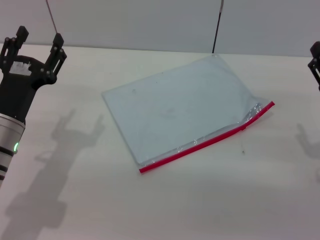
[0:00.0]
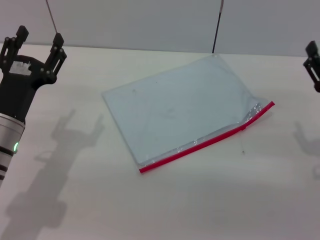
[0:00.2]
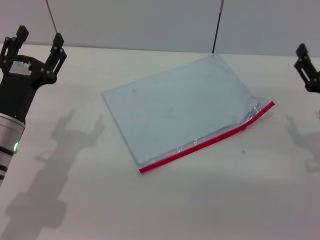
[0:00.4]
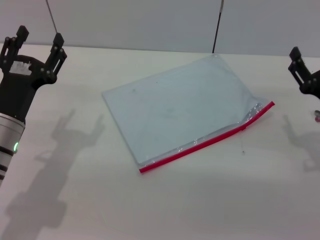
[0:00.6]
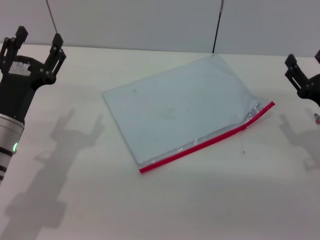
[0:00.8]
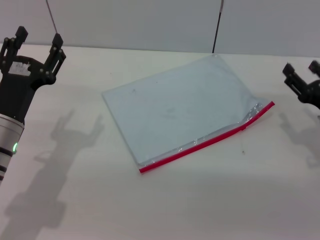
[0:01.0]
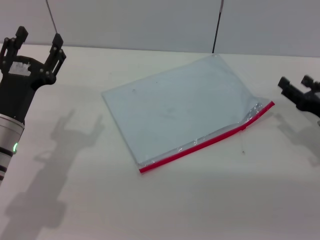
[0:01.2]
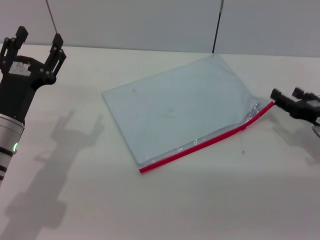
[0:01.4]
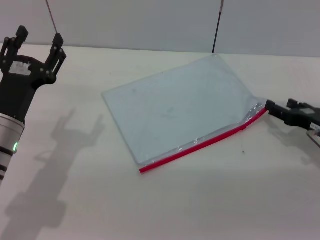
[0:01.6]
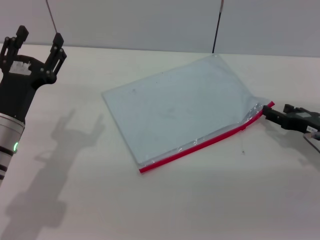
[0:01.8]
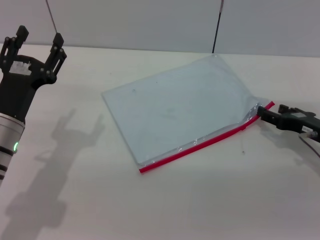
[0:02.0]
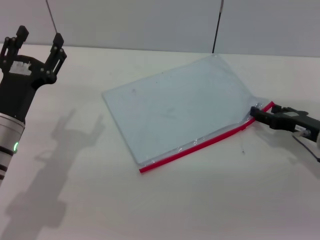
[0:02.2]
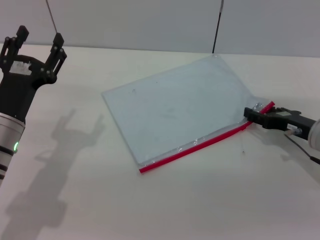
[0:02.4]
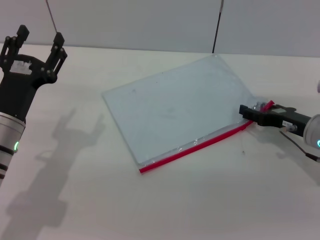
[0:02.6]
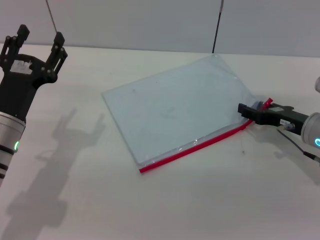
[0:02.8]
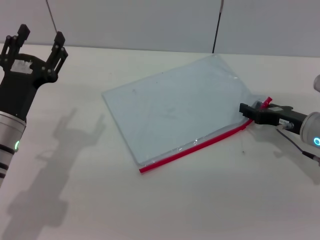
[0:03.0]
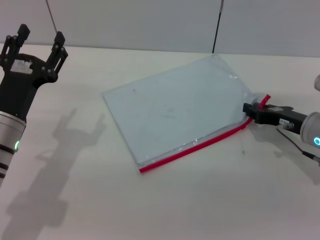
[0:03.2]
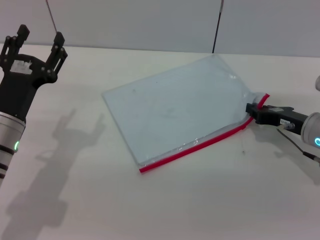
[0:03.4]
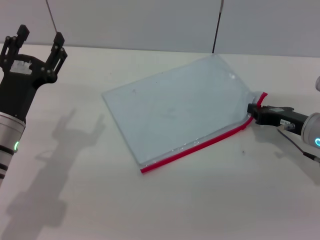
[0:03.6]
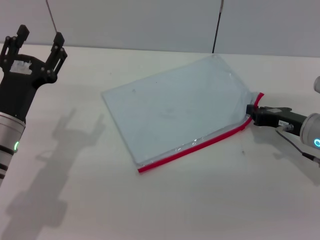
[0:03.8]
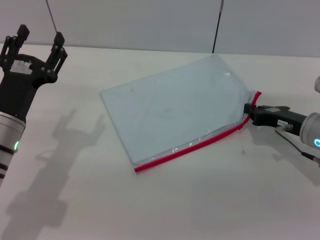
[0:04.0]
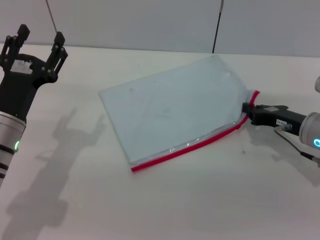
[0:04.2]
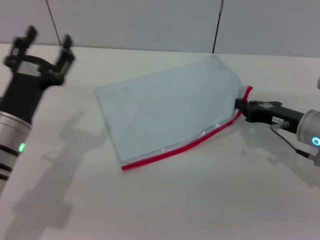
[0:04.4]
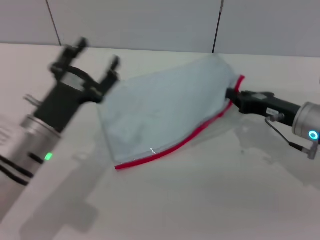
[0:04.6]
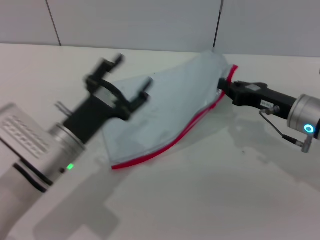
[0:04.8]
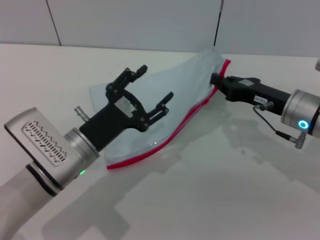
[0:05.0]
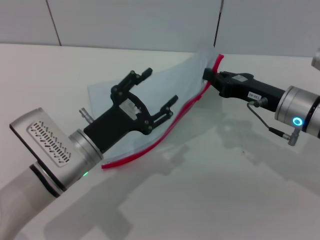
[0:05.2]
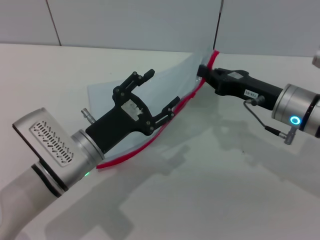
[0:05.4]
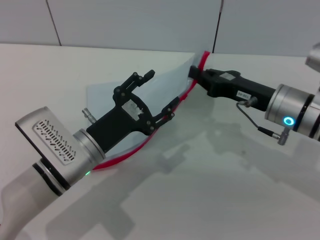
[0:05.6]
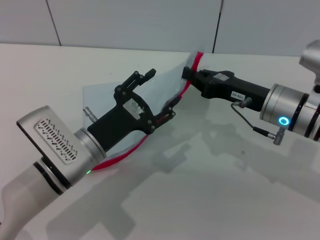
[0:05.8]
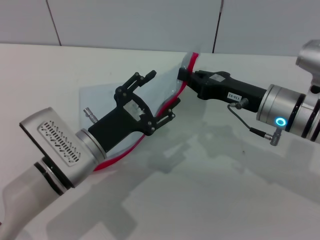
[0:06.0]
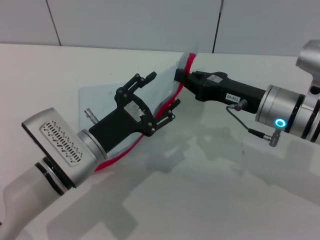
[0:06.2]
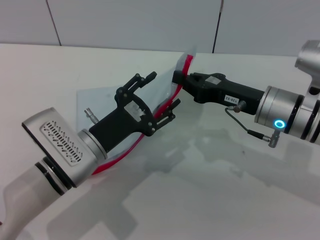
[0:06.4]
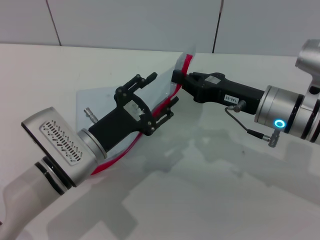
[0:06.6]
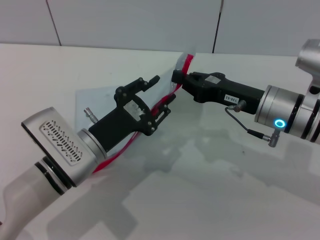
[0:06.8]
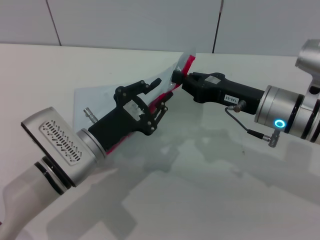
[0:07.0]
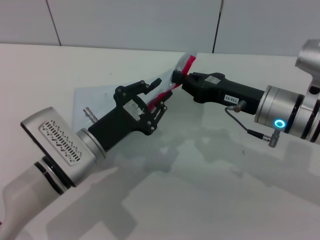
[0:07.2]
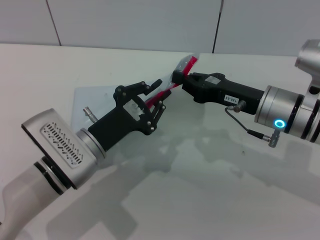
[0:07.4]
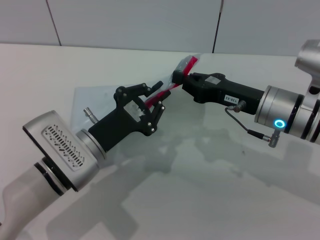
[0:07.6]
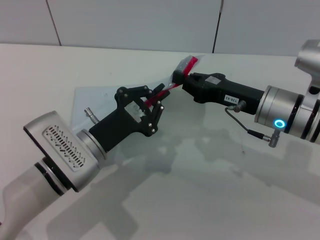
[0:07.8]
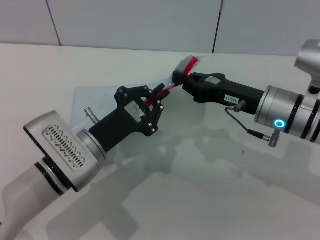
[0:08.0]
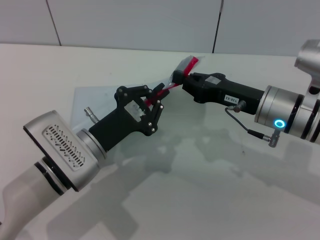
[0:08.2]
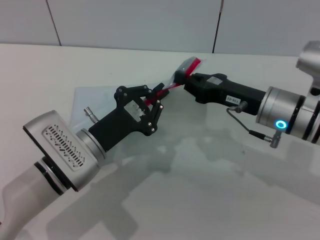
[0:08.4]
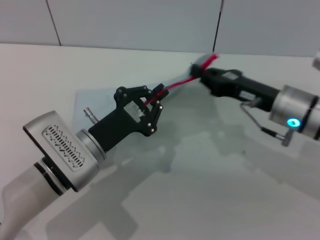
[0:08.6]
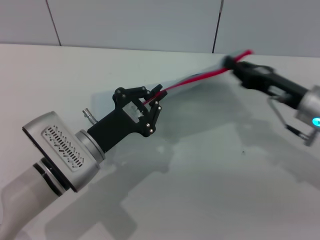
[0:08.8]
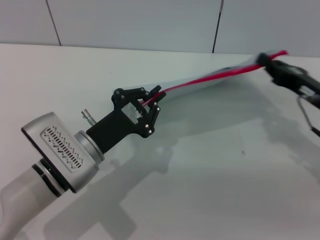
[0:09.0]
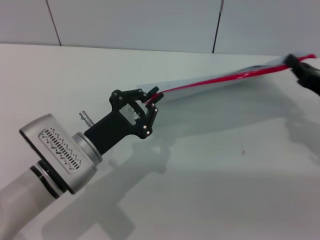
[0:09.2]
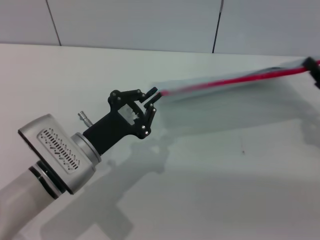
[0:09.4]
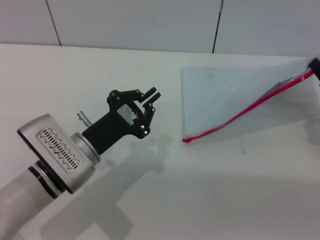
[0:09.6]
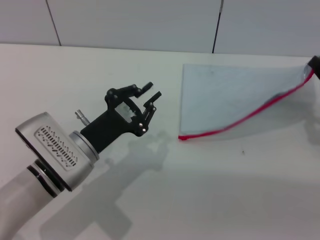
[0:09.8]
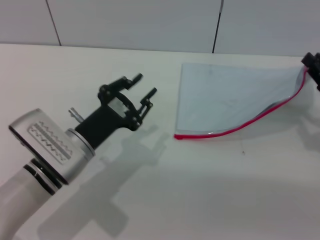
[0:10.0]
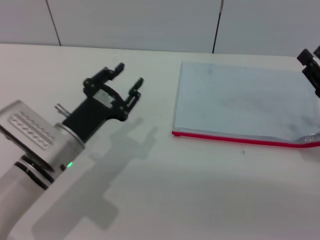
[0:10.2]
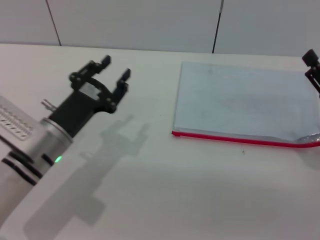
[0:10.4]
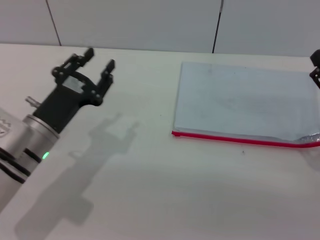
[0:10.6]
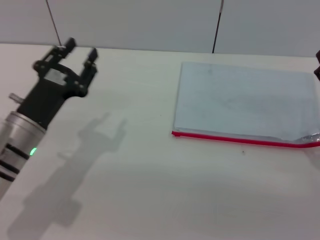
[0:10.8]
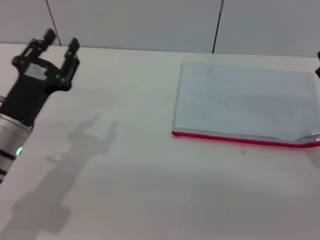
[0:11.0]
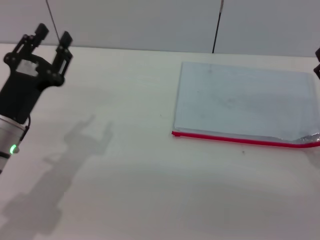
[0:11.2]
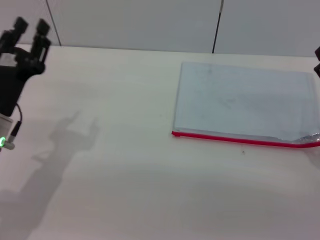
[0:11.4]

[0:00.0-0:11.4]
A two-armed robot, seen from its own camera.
Step, 0:00.0 to 0:04.8: Pick up the transparent plastic bag with the right gripper.
Step, 0:09.8 to 0:10.6: Place the transparent plastic bag.
0:00.0 to 0:01.4: The right gripper heads forward, covering roughly 5 cm.
0:01.4 to 0:02.8: The right gripper shifts by some 5 cm.
0:02.8 to 0:04.2: The right gripper closes up.
0:04.2 to 0:05.6: The right gripper travels to the left by roughly 5 cm; the left gripper travels to the right by some 10 cm.
0:05.6 to 0:07.2: The left gripper closes.
0:07.2 to 0:08.6: The grippers move only a little.
0:08.6 to 0:10.0: The right gripper travels to the right by approximately 10 cm.
0:10.0 to 0:11.4: The left gripper travels to the left by roughly 10 cm, and opens. Meanwhile the right gripper changes place by approximately 5 cm, and opens up.

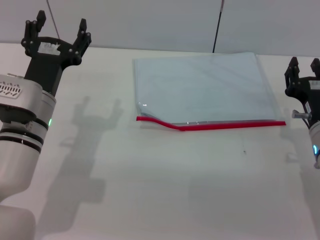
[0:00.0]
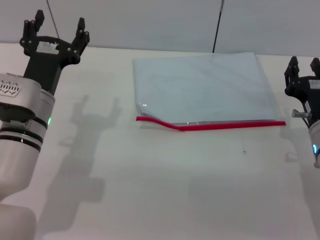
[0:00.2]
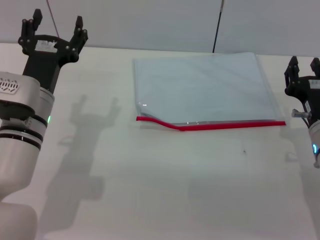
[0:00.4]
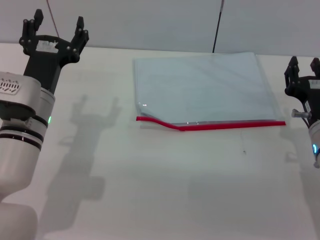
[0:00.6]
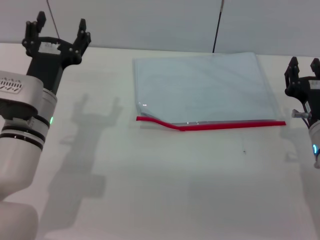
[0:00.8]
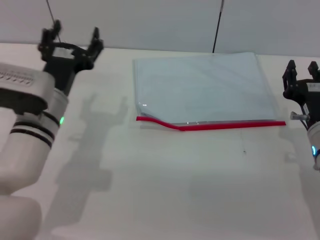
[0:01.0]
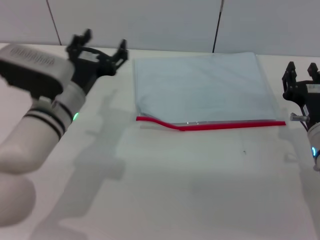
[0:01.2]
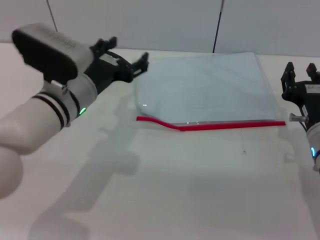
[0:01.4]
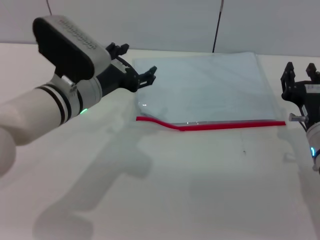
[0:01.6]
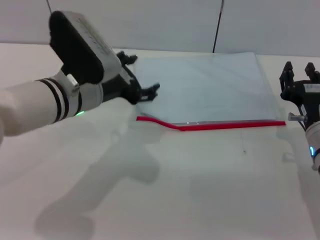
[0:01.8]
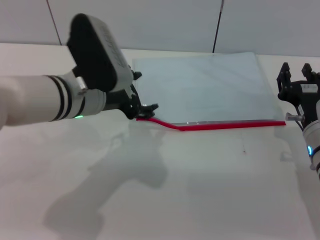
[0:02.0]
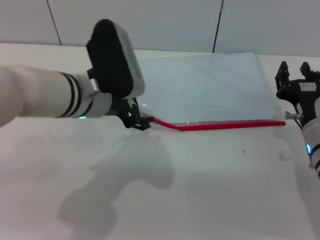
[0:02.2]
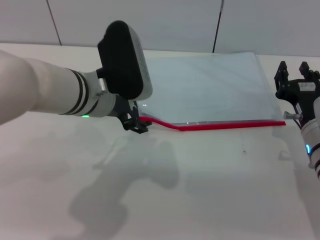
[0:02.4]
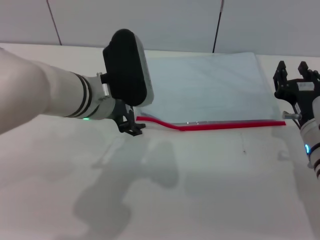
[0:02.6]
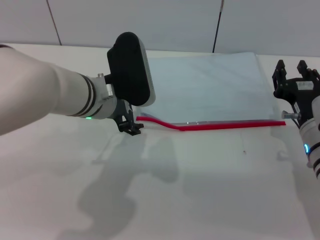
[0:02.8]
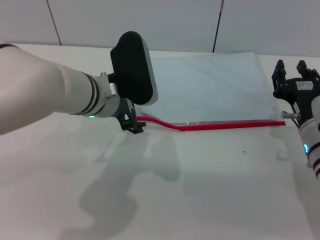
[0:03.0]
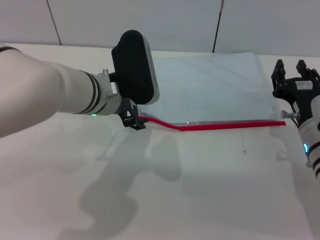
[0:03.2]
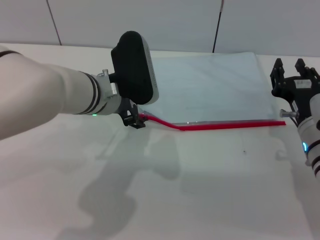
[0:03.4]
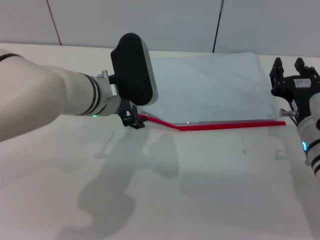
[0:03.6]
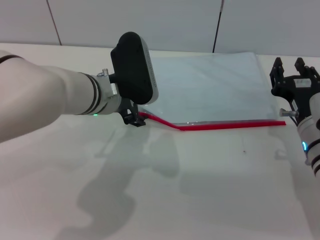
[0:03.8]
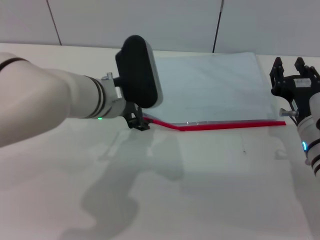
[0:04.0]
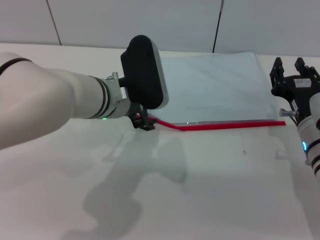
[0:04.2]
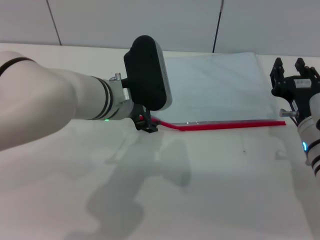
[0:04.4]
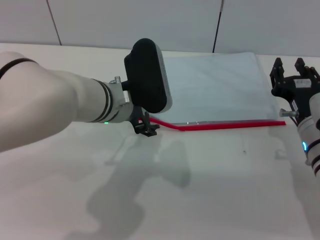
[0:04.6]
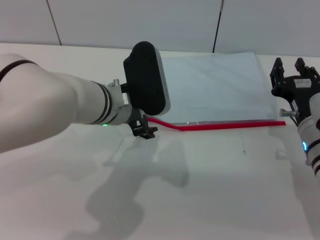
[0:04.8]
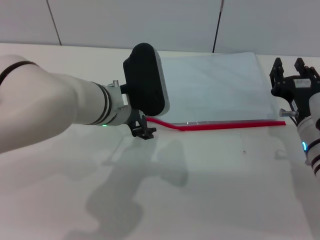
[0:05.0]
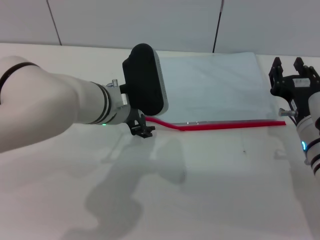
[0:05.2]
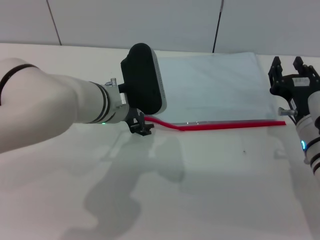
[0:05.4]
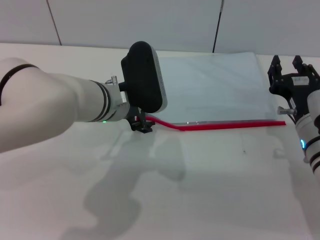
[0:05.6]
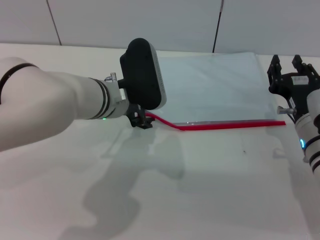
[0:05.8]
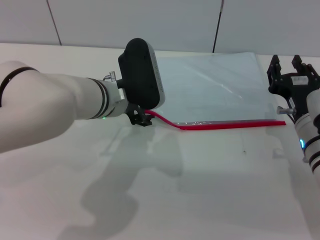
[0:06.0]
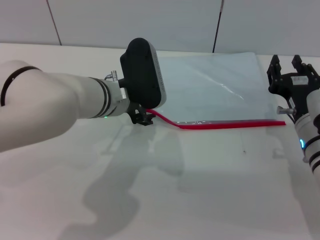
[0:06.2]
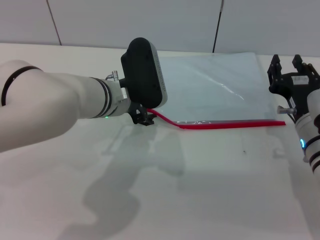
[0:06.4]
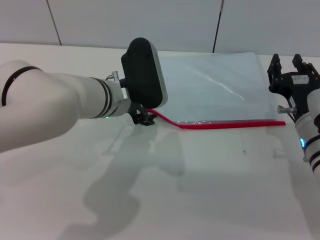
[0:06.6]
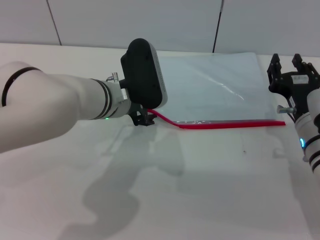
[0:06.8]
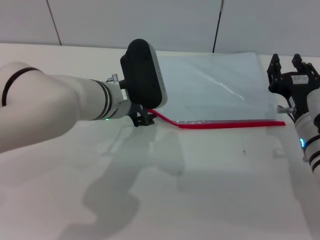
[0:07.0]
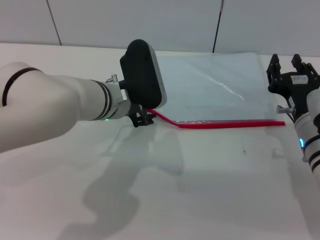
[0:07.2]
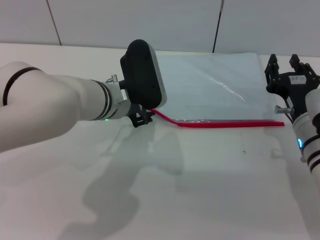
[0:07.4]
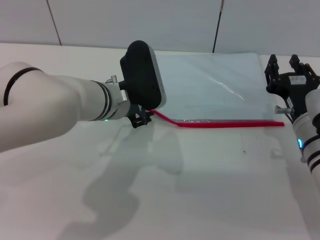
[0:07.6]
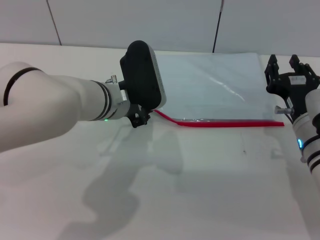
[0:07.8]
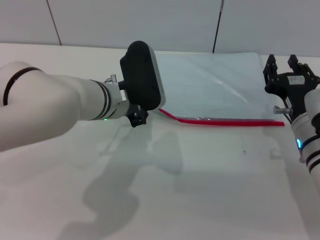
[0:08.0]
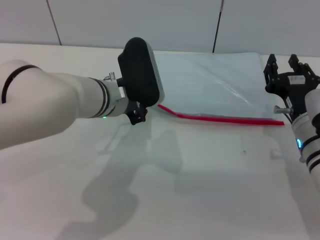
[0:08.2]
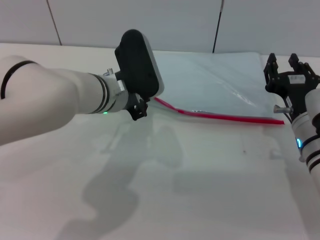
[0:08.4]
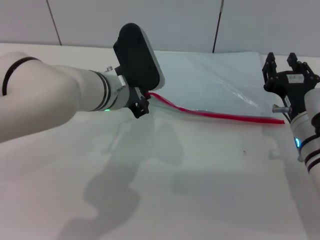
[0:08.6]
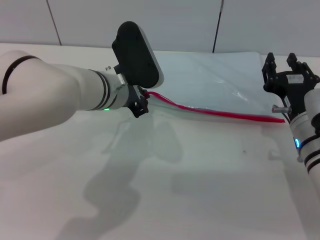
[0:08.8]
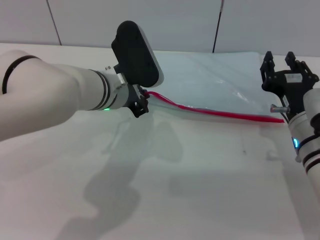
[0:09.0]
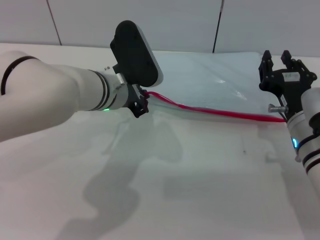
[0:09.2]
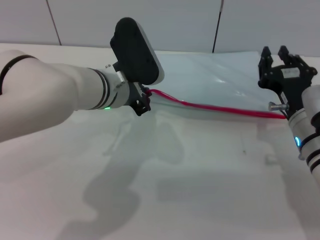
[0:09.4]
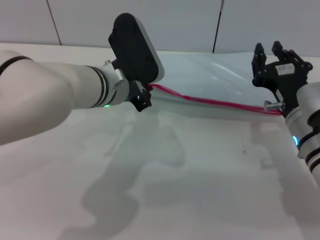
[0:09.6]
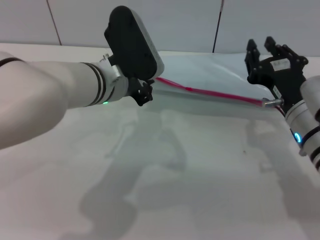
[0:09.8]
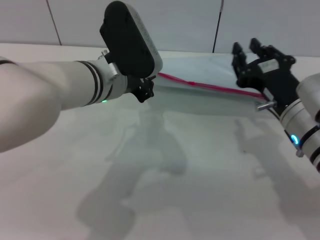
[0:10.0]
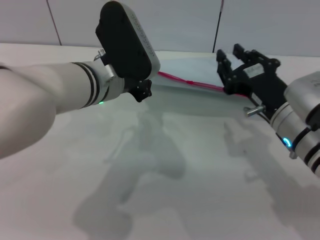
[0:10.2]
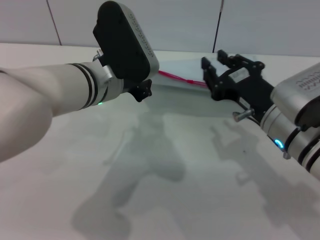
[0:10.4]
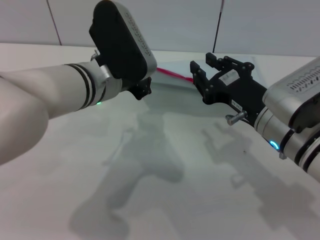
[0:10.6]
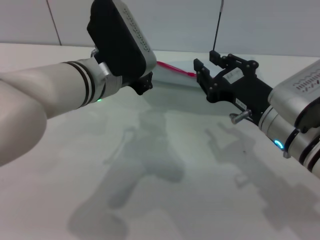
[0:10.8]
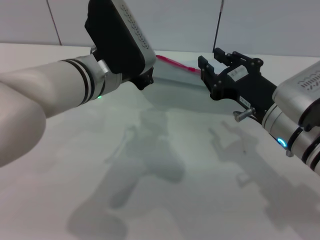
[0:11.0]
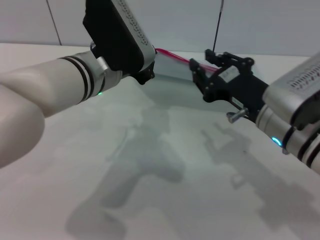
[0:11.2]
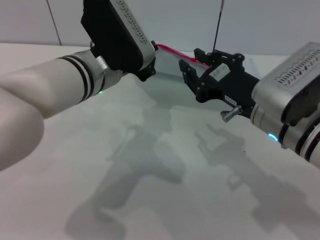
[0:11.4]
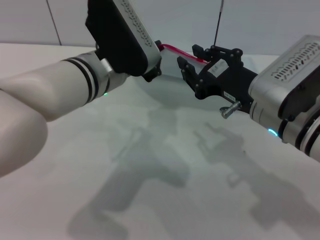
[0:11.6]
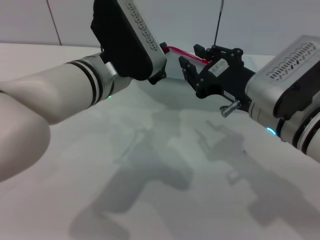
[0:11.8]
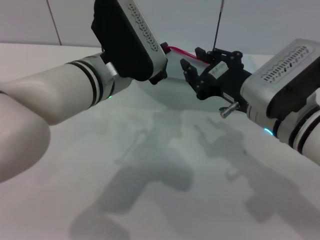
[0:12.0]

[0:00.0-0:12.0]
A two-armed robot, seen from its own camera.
Step, 0:00.0 to 0:10.8: Pick up the transparent plastic bag with the left gripper.
0:00.0 to 0:01.6: The left gripper shifts by about 5 cm.
0:03.0 to 0:06.0: The grippers make only small movements.
0:06.0 to 0:07.6: The left gripper closes.
0:07.6 to 0:09.0: The left gripper closes up.
0:09.0 to 0:10.4: The right gripper travels upward by about 5 cm; the left gripper moves some 5 cm.
